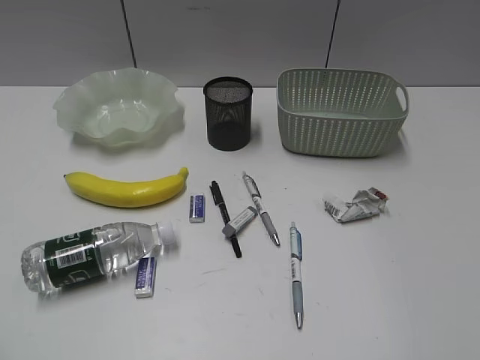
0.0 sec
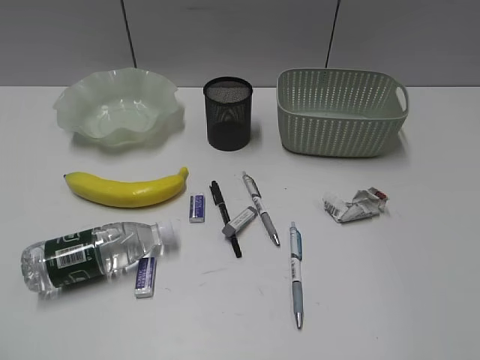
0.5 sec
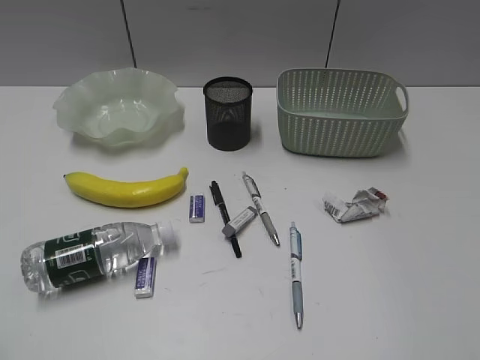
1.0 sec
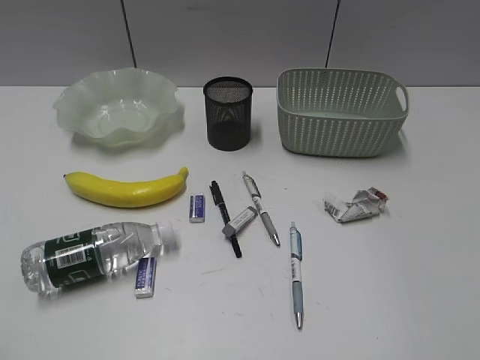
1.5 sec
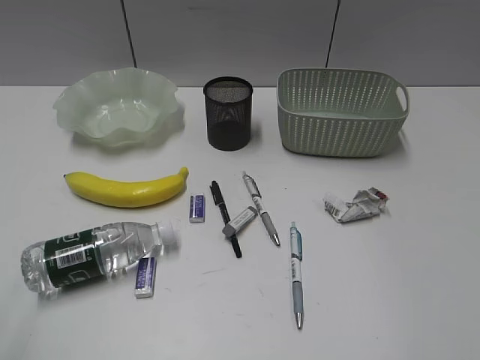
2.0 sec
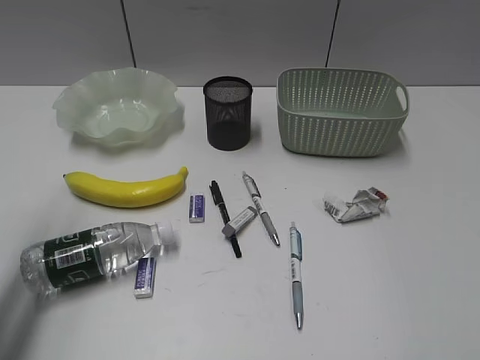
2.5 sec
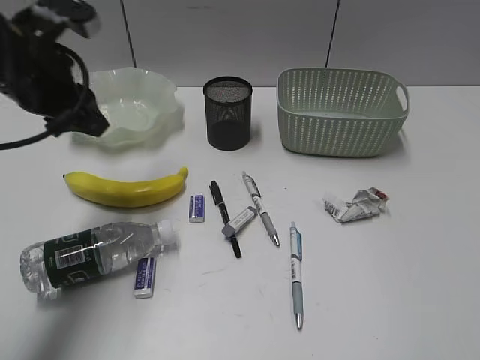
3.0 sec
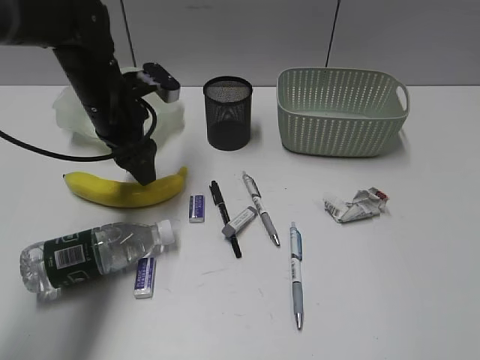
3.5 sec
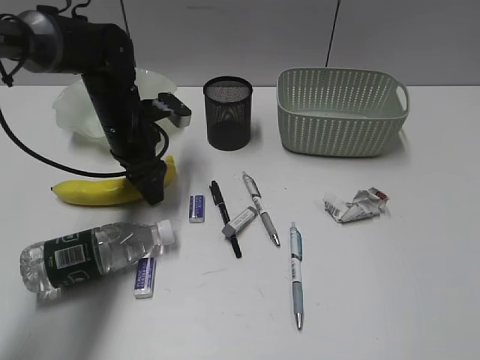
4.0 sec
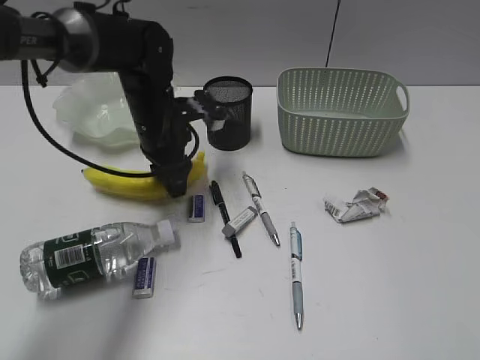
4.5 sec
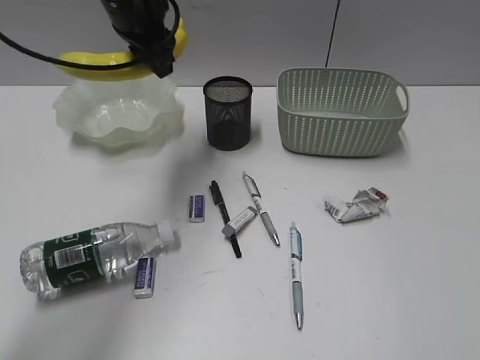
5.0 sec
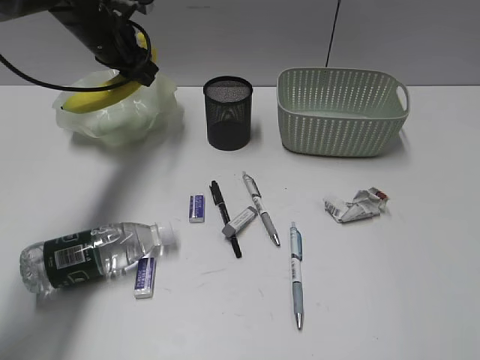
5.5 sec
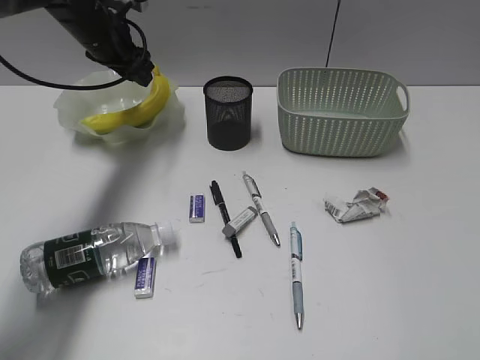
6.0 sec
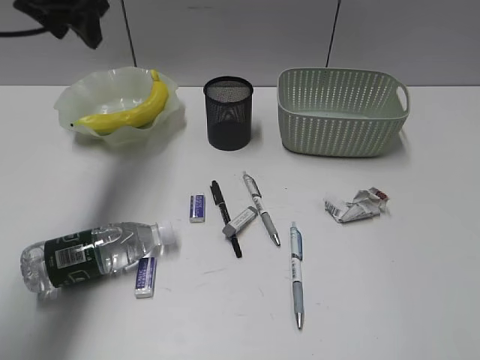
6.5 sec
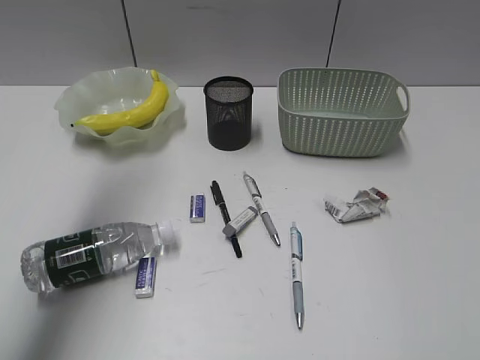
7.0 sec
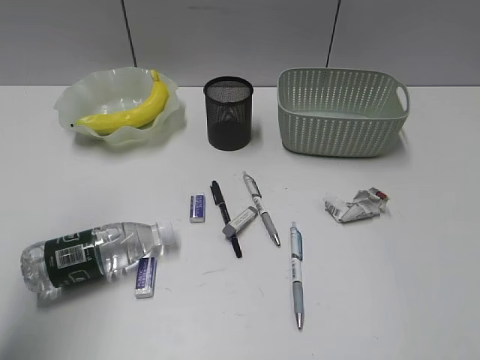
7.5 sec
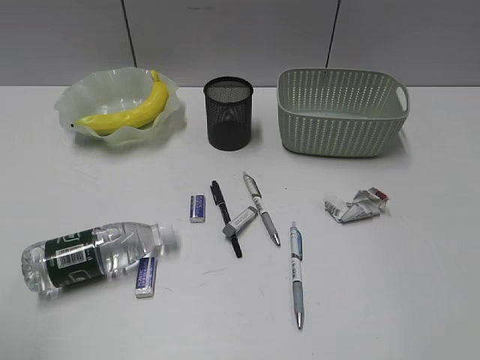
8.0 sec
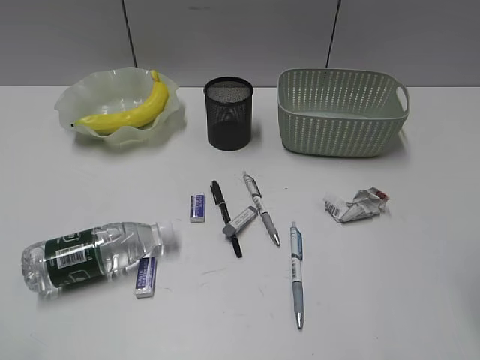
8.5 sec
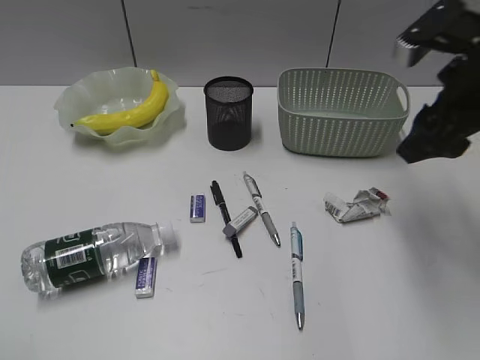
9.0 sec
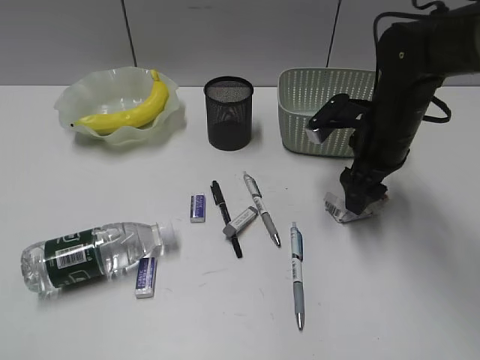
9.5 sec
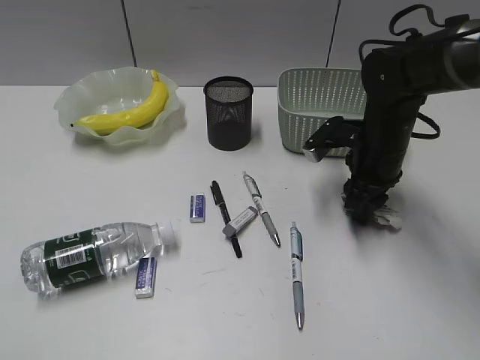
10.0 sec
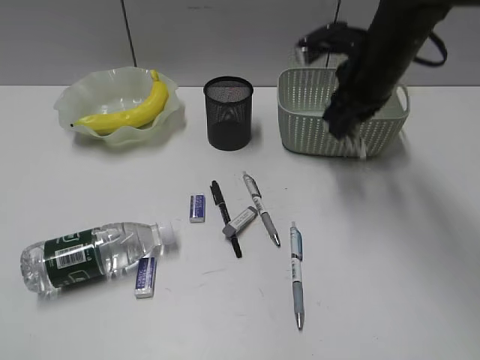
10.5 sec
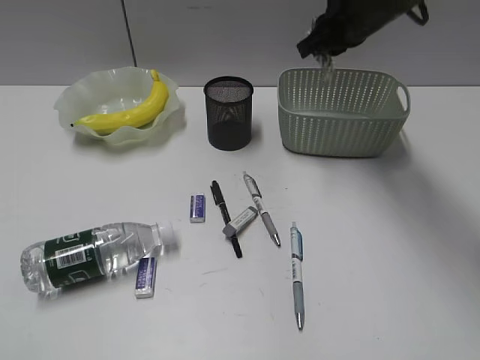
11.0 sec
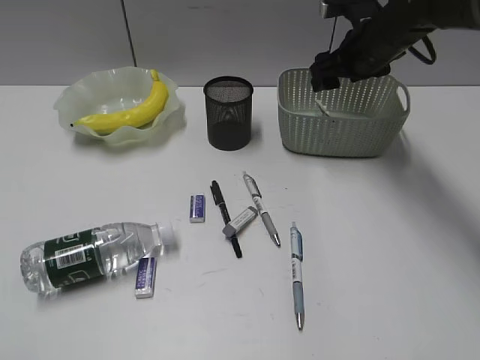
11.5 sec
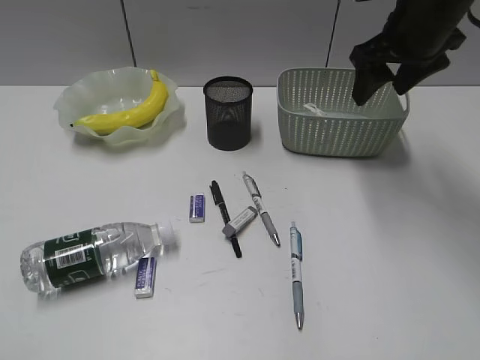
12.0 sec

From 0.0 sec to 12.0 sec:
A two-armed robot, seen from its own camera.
Step, from 2.0 sec to 4.0 sec: Grasp the banana with left gripper.
Step, from 4.5 sec to 5.5 sec: Place the banana in the plate with left gripper.
Step, from 6.0 sec to 10.0 sec: Grasp the waste paper with right gripper.
Step, from 10.5 sec to 11.5 sec: Place the waste paper in the basket with right gripper.
From 2.0 sec to 4.0 sec: The left gripper moves forward, downward and to the right, approximately 50 cm, and opens up.
From 4.0 sec to 6.0 sec: The left gripper is displaced forward and upward by about 15 cm.
From 6.0 sec to 8.0 sec: The left gripper is displaced backward by approximately 40 cm.
From 8.0 sec to 10.0 sec: The right gripper goes approximately 40 cm forward and downward, while the left gripper moves backward, approximately 10 cm.
From 10.0 sec to 12.0 sec: The right gripper swings up and down, some 15 cm each way, with 2 reversals, and opens up.

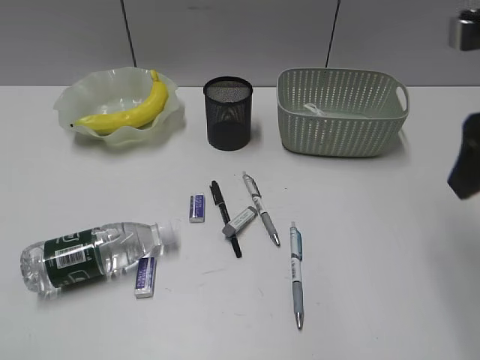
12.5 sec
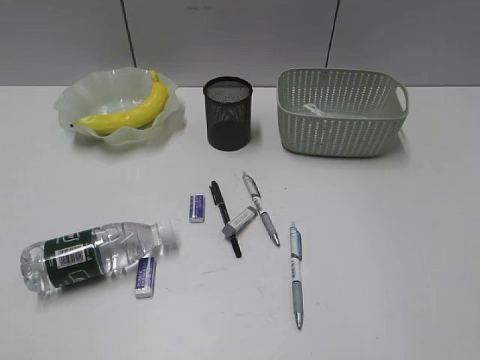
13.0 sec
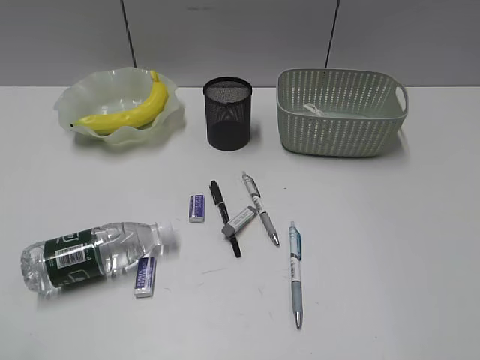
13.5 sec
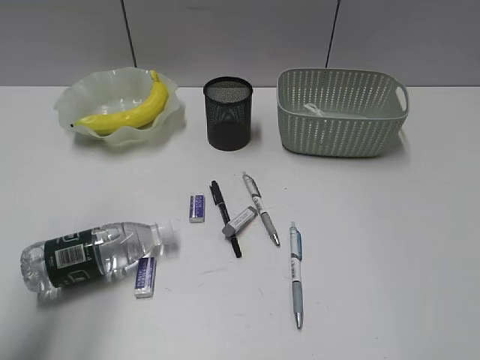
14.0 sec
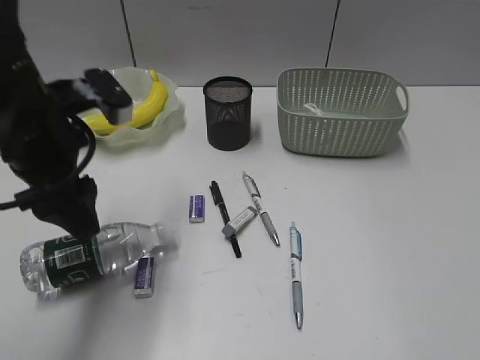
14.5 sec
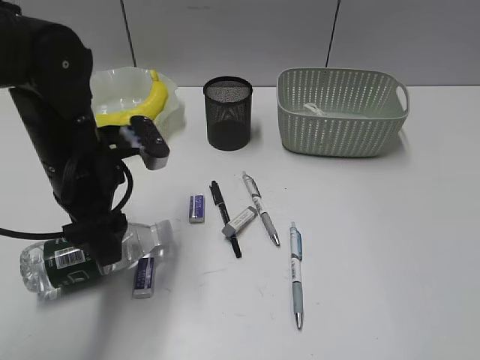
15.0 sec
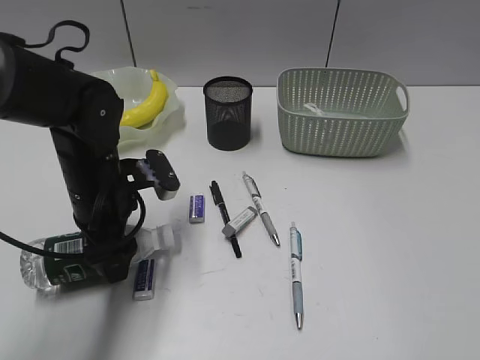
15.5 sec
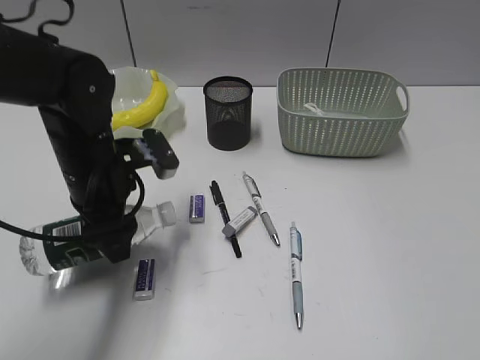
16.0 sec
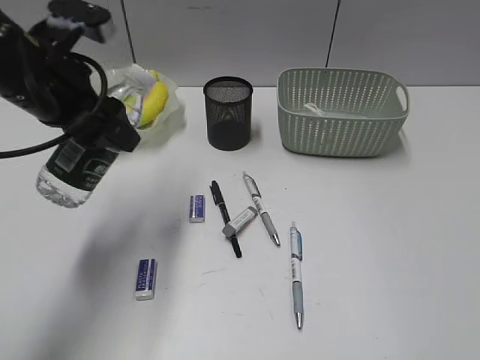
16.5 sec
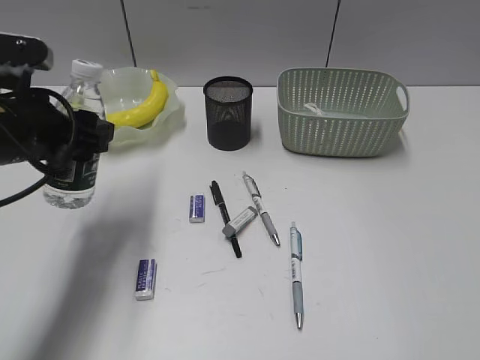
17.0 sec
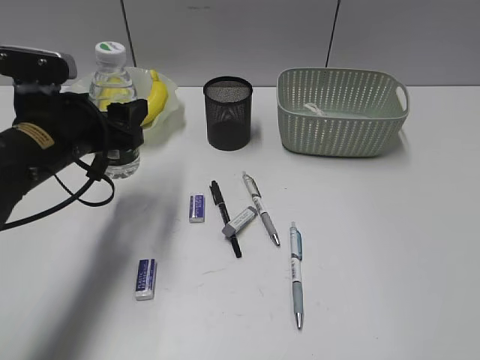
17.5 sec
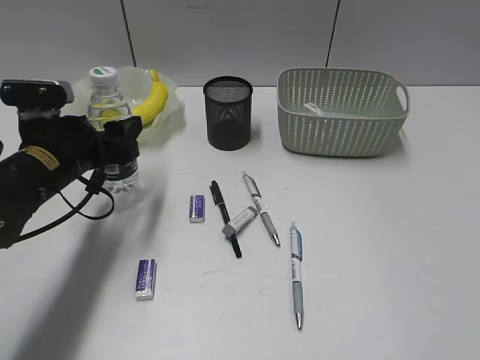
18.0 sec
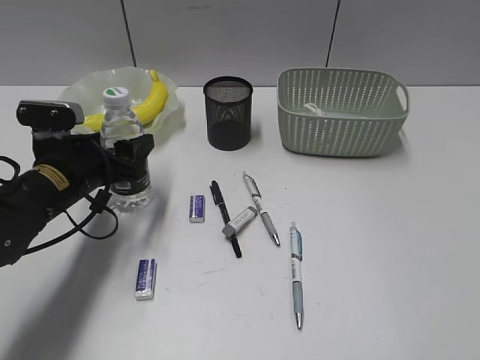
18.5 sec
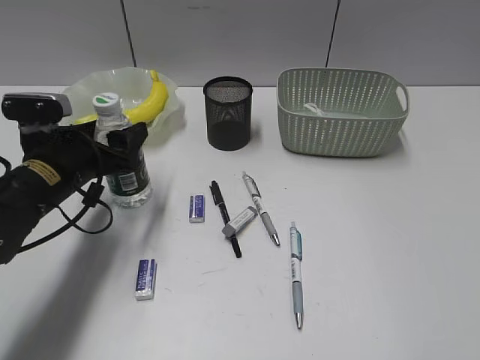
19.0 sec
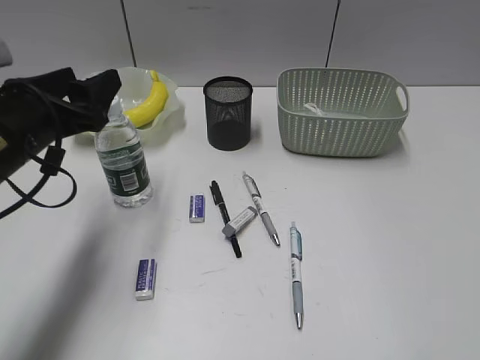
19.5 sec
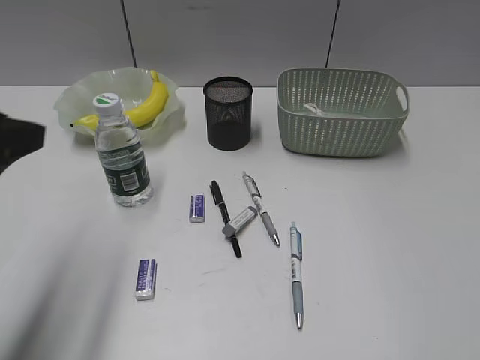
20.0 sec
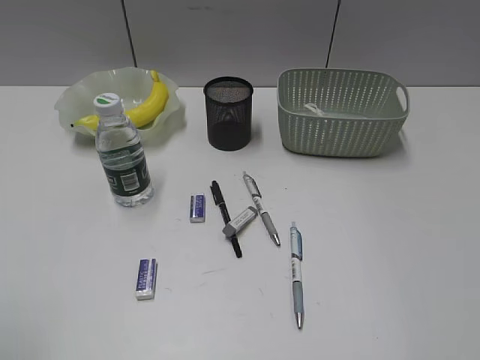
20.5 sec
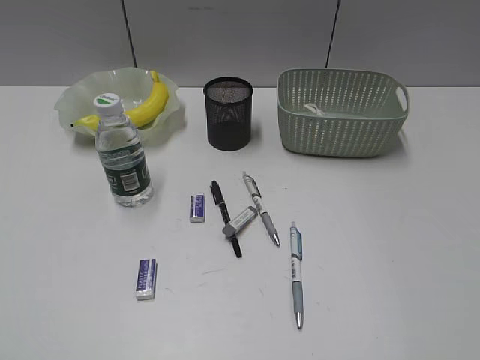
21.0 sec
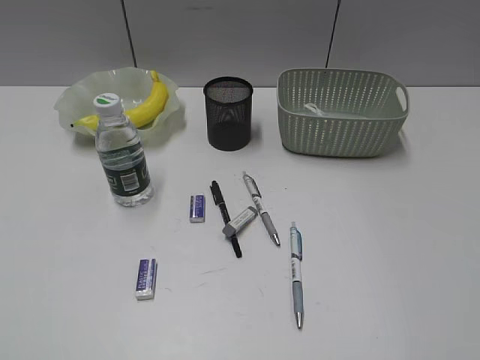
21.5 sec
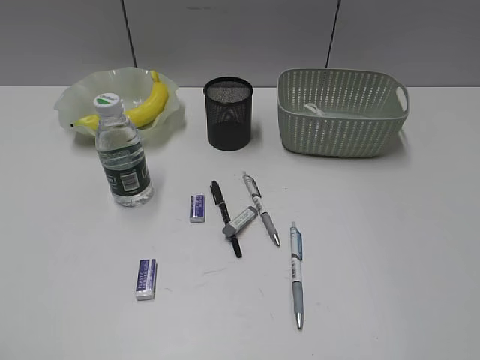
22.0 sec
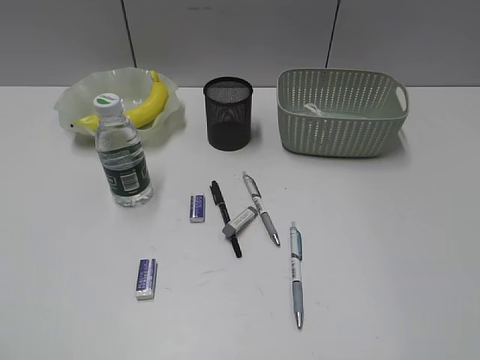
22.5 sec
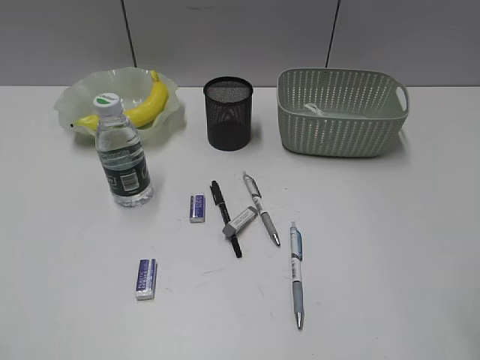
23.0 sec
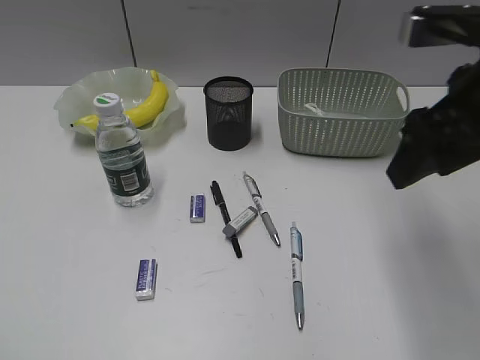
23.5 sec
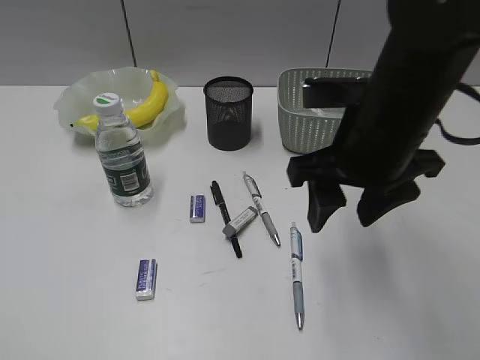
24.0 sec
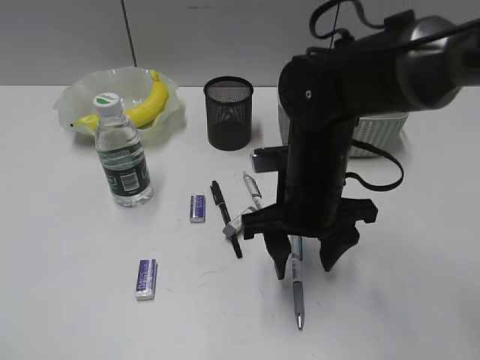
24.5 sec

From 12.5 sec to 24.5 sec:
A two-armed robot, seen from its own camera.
Step, from 12.5 sec to 15.5 sec: Grasp the bottle with left gripper.
Step, from 16.0 sec to 19.0 sec: Stand the bottle with left gripper.
From 12.5 sec to 14.5 sec: The right gripper goes approximately 25 cm backward. Meanwhile the left gripper moves forward and to the right, some 30 cm, and opens.
From 14.5 sec to 16.5 sec: The left gripper reaches some 10 cm downward, then returns.
From 16.5 sec to 18.5 sec: The left gripper heads downward, covering about 15 cm.
From 18.5 sec to 20.5 sec: The left gripper travels backward, upward and to the left by about 35 cm.
From 22.5 sec to 24.5 sec: The right gripper moves forward, to the left and downward, roughly 40 cm.

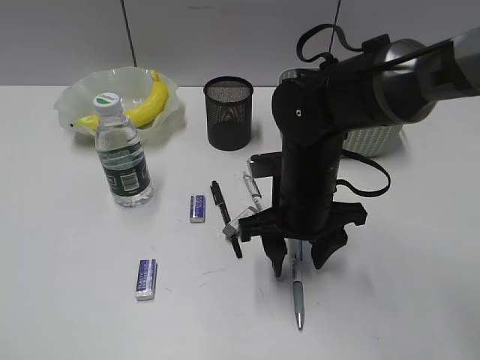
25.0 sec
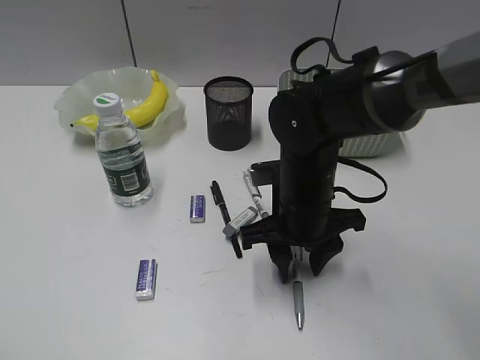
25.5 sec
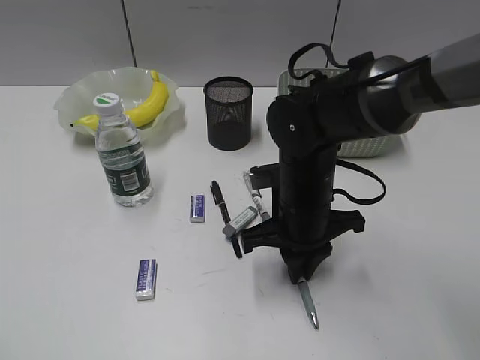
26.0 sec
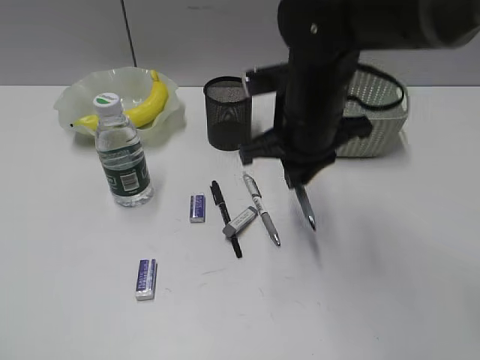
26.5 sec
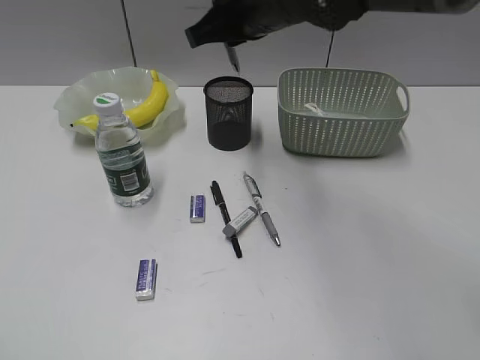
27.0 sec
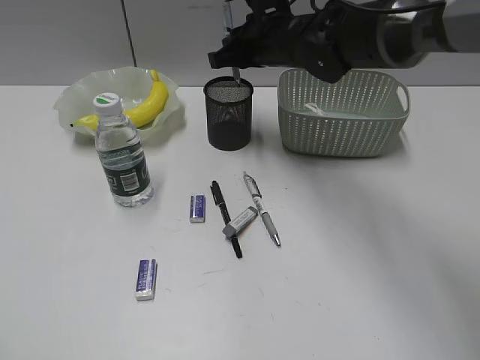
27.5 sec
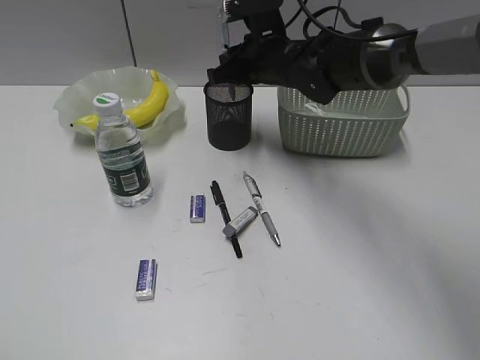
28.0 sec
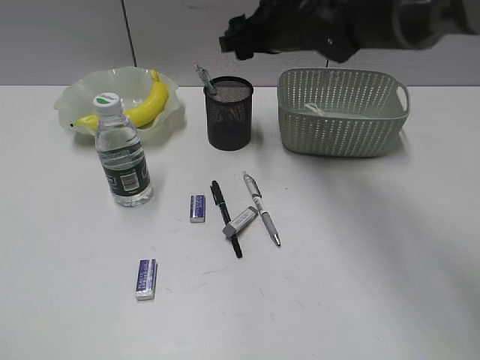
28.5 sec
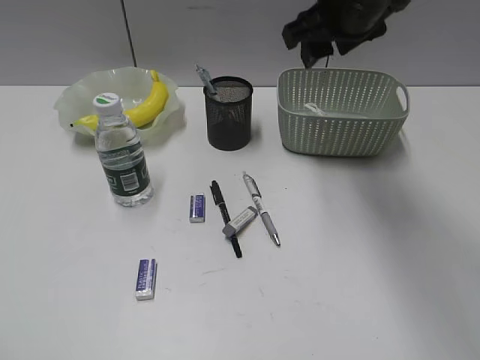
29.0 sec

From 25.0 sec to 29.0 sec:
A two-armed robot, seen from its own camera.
Step, from 26.0 sec to 28.0 sec: Place the blue pen in pen holder with right gripper.
From 25.0 sec to 27.0 sec: The right gripper shifts about 20 cm upward and forward, and closes its fingers.
From 27.0 sec to 29.0 sec: The right gripper goes some 10 cm to the right, travels downward and back again, roughly 10 cm each way, and opens.
